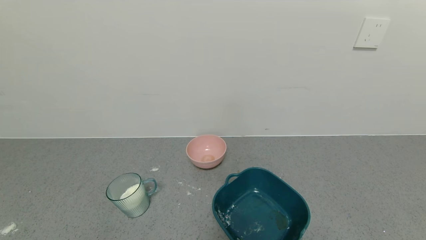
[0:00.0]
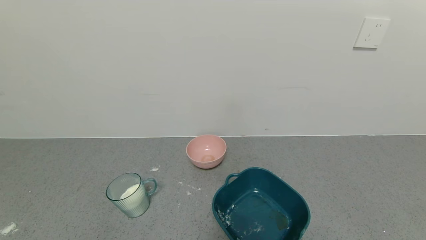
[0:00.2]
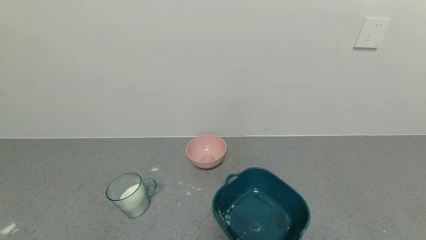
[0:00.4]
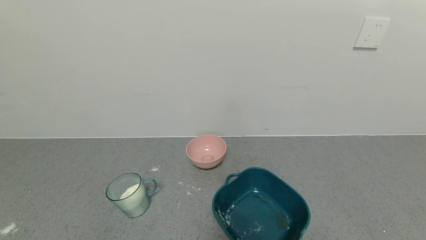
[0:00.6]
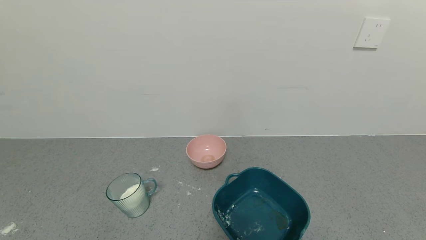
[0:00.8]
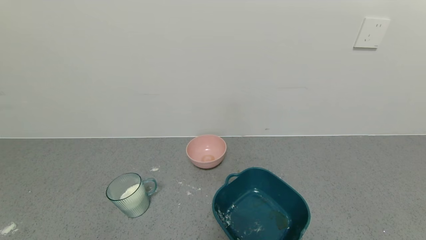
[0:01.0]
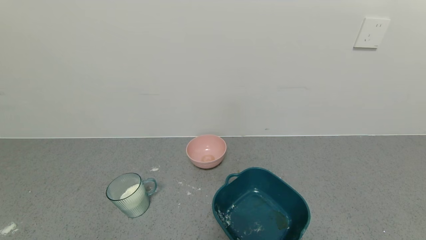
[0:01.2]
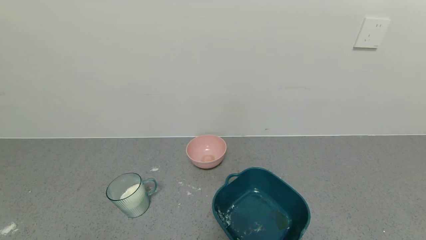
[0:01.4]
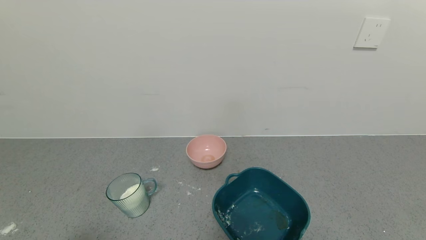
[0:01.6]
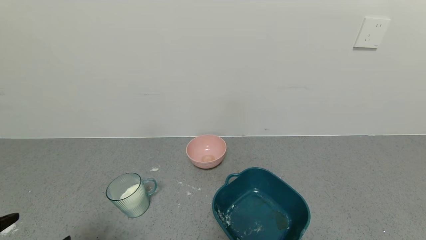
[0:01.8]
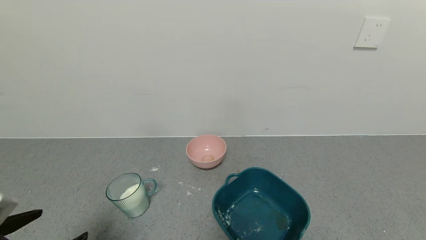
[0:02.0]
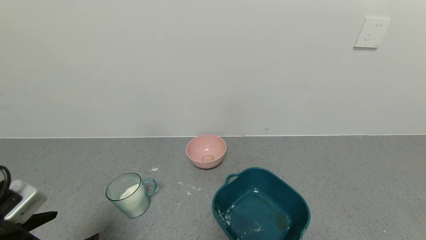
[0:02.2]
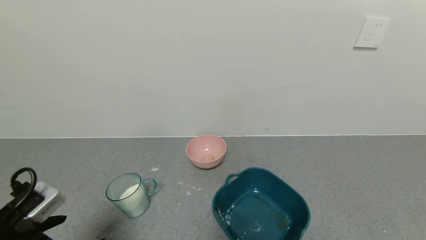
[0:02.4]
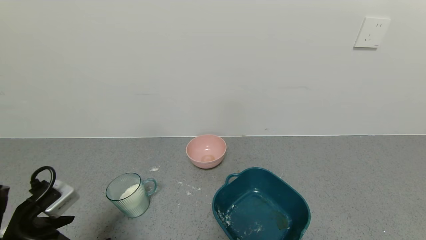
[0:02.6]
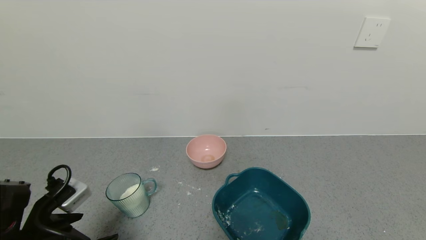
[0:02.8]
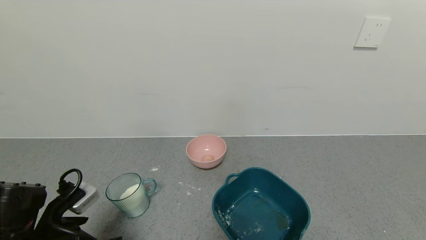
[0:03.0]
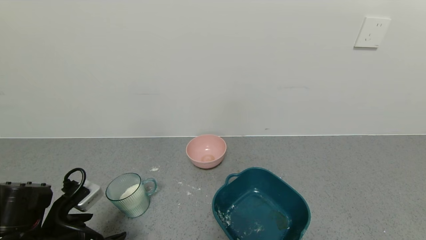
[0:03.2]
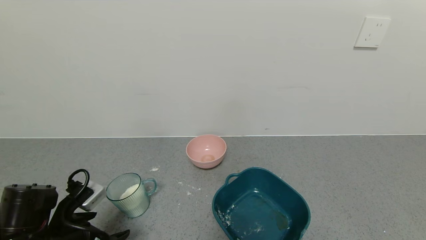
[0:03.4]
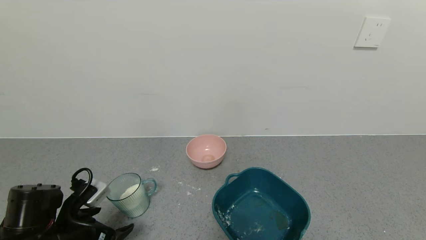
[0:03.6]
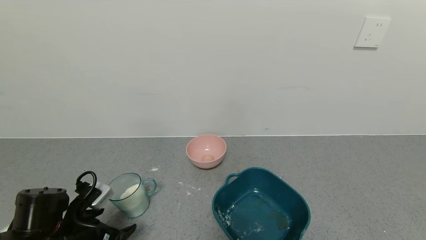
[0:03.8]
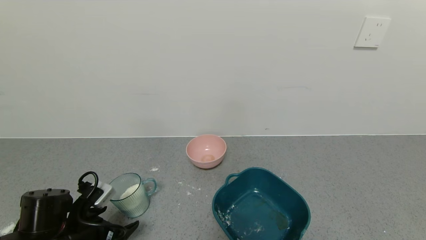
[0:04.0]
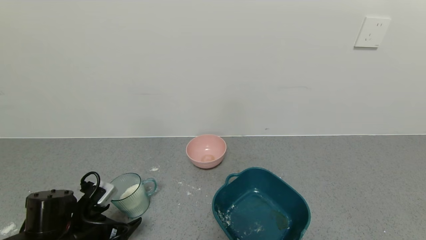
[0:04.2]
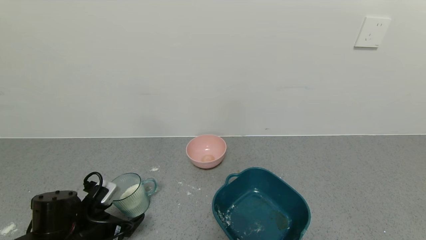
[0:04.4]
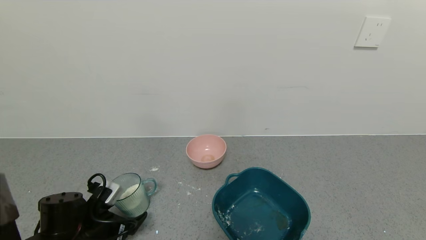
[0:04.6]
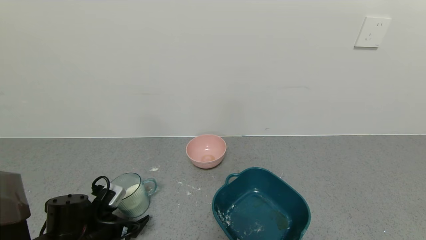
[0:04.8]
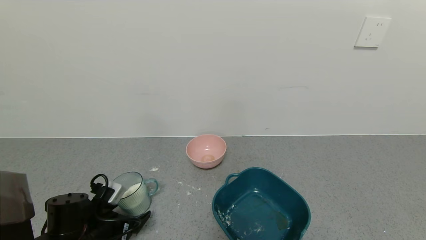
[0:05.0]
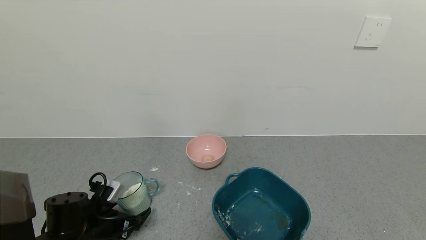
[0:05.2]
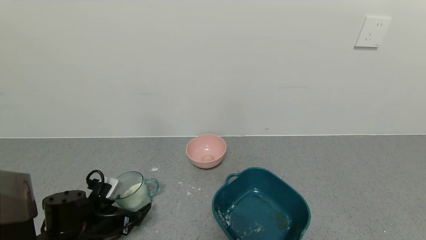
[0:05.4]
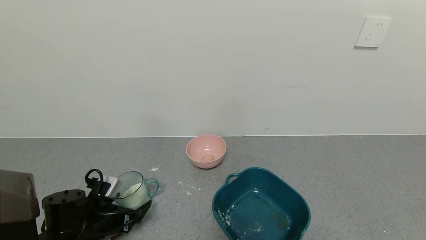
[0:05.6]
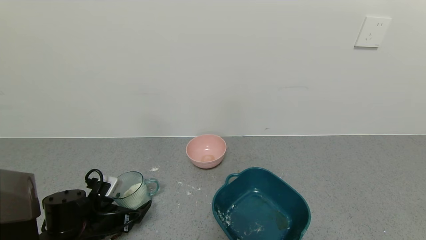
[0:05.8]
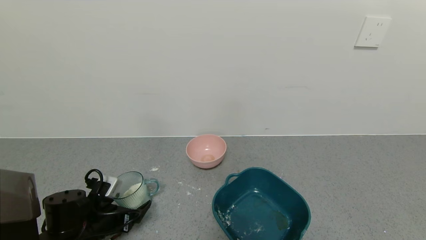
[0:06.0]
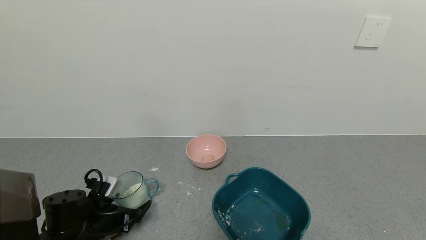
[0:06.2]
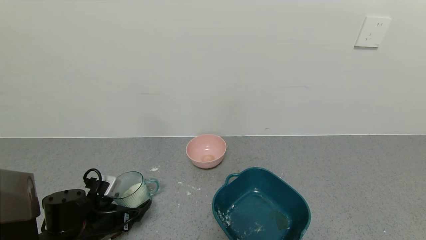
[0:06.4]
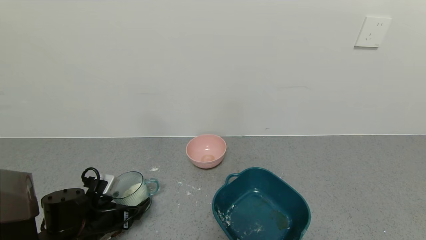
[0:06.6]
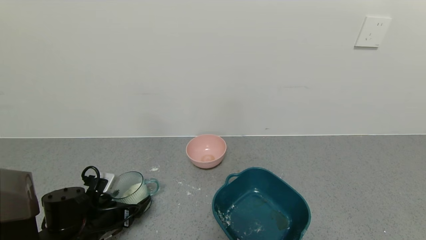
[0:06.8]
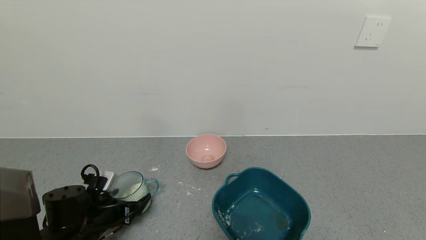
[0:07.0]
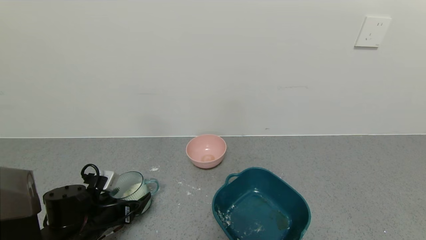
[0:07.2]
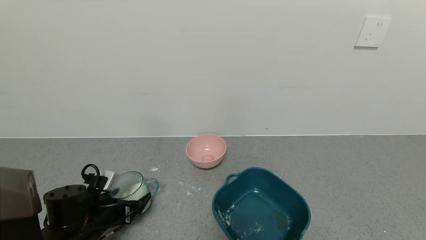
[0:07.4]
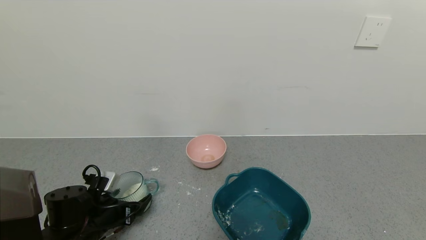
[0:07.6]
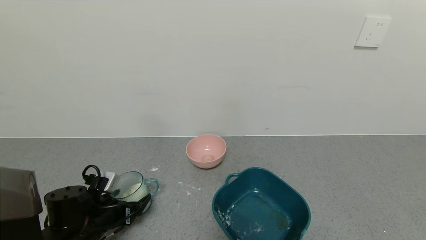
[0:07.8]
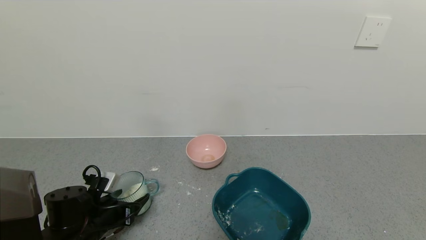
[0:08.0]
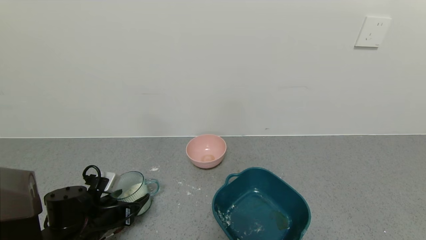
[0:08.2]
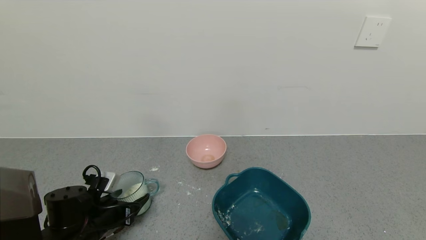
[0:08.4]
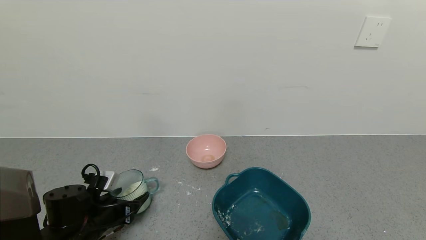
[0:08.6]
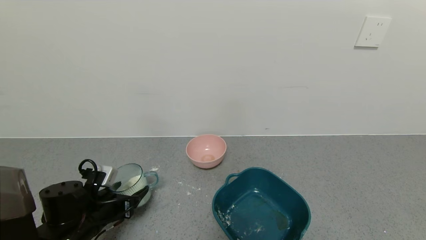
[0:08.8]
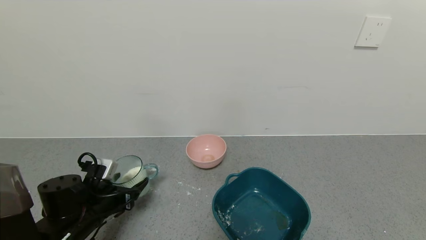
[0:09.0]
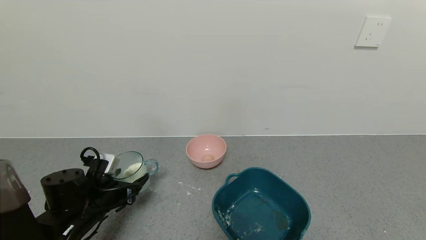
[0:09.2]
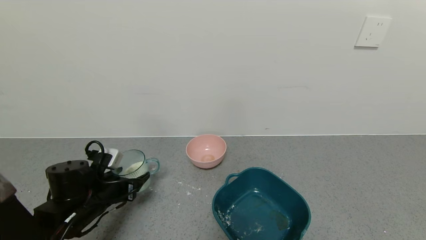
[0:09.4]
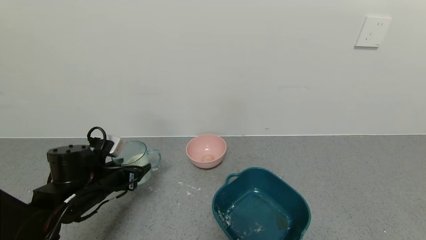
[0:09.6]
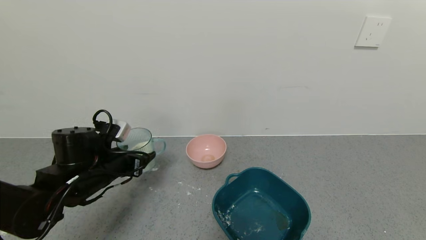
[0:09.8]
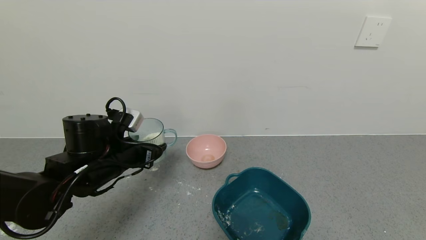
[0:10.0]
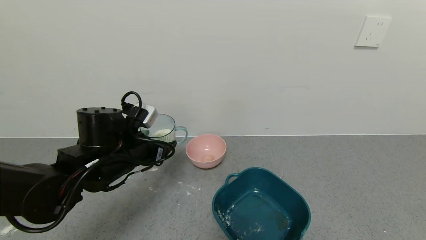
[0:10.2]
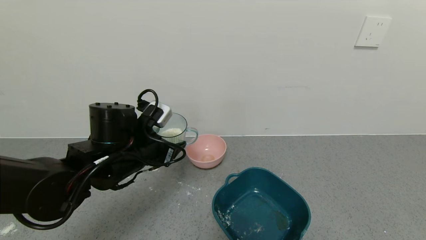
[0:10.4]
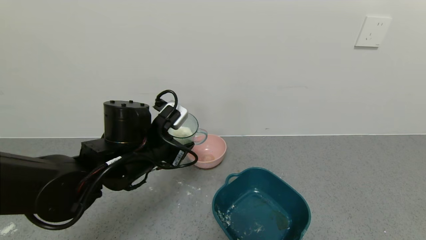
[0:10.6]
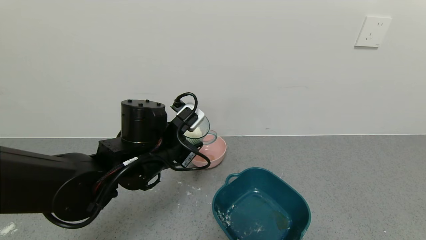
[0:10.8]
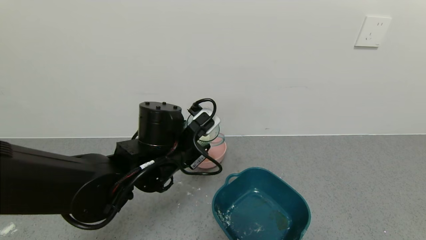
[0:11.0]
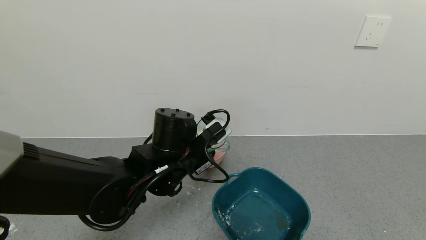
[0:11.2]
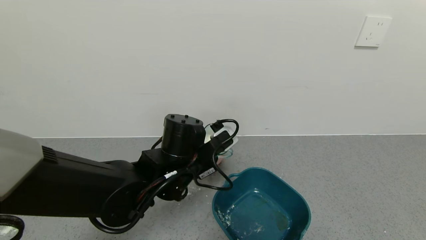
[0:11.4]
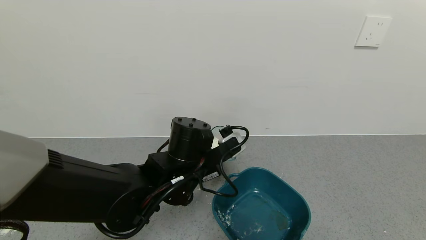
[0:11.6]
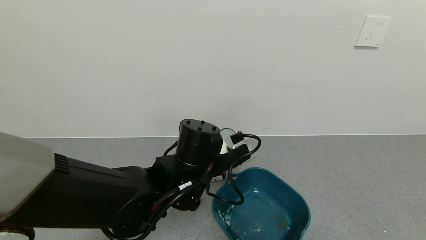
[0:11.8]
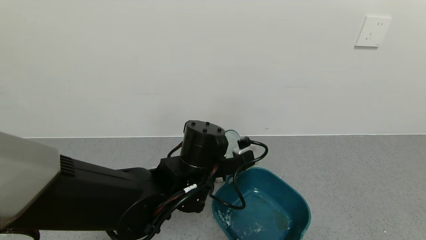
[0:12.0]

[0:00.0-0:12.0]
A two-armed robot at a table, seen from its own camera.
Task of the whole recording: use a gripper to pick up the cup and pour the powder into a bowl or tray.
Step, 0:00.0 to 0:08.0: Grasp the glass of powder with the left gripper.
0:01.6 to 0:03.0: The left gripper shifts about 15 cm forward and downward.
0:03.0 to 0:04.4: The left gripper is displaced downward by about 5 cm.
0:04.4 to 0:06.0: The grippers move only a little.
0:06.0 to 0:07.6: Both grippers stay about where they are.
0:07.6 to 0:09.0: The left gripper closes.
0:09.0 to 0:10.4: The left gripper travels upward and to the right by roughly 15 cm.
0:10.4 to 0:12.0: The left gripper moves to the right, roughly 15 cm.

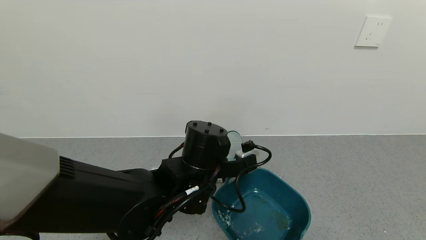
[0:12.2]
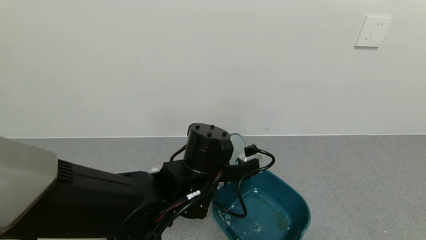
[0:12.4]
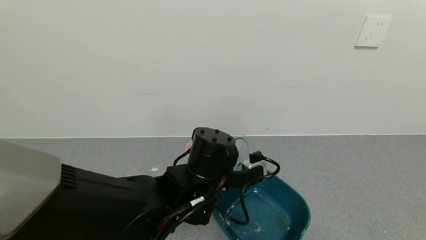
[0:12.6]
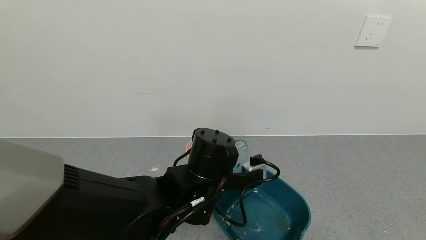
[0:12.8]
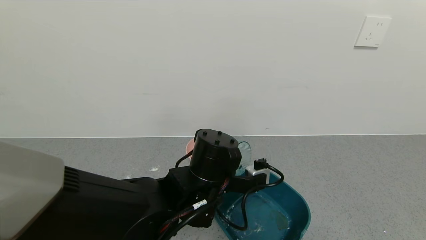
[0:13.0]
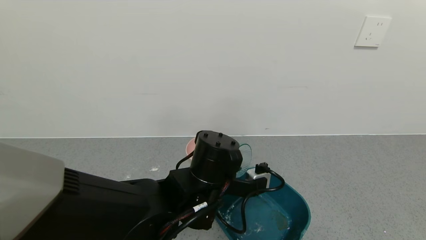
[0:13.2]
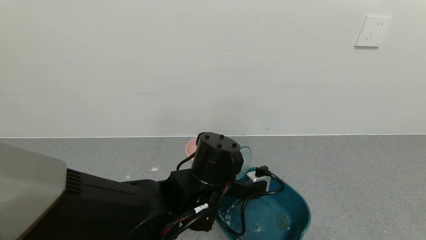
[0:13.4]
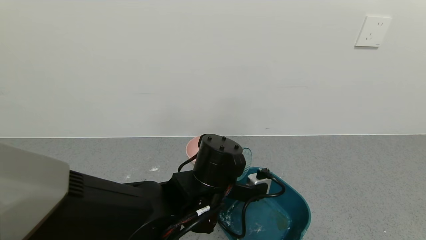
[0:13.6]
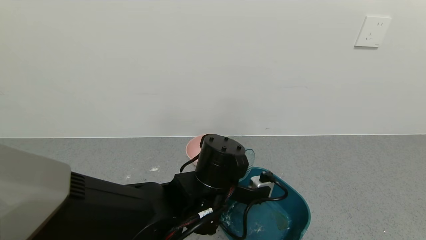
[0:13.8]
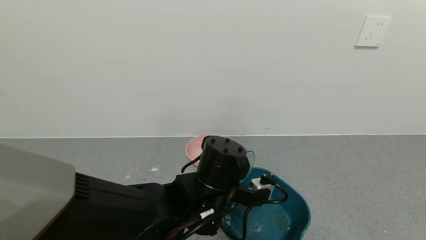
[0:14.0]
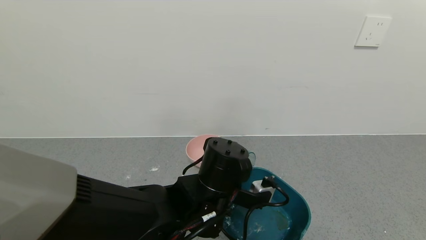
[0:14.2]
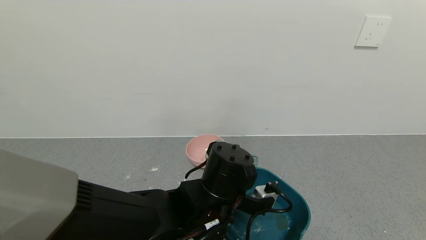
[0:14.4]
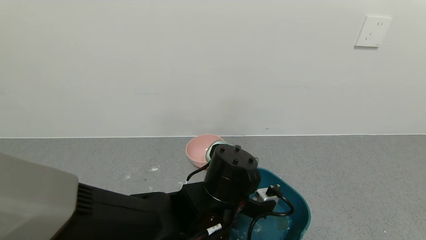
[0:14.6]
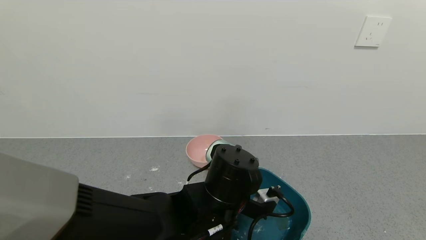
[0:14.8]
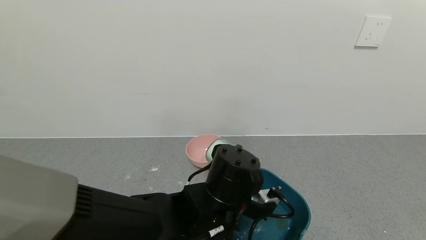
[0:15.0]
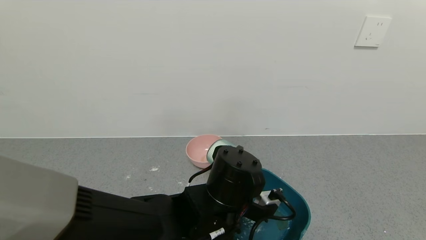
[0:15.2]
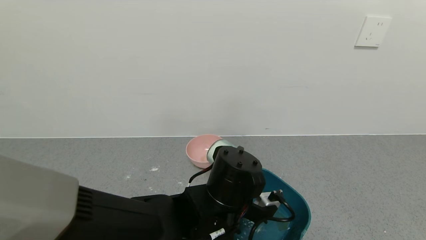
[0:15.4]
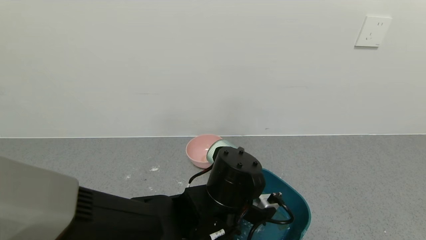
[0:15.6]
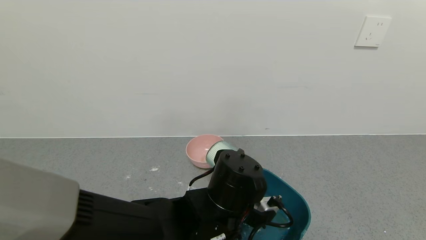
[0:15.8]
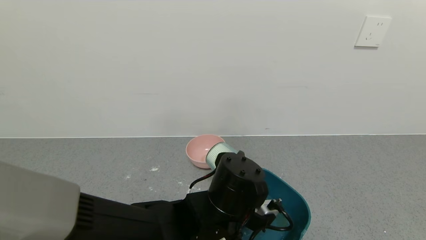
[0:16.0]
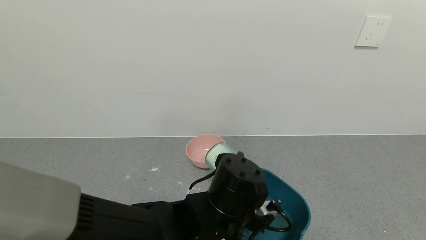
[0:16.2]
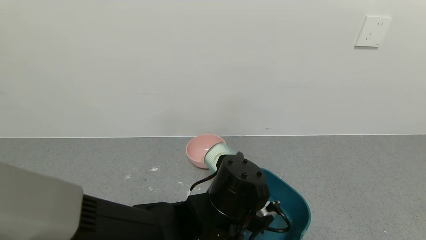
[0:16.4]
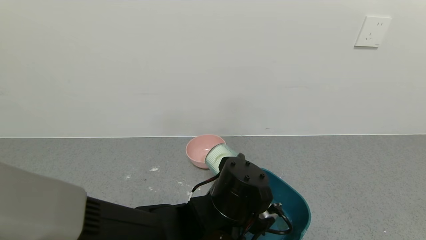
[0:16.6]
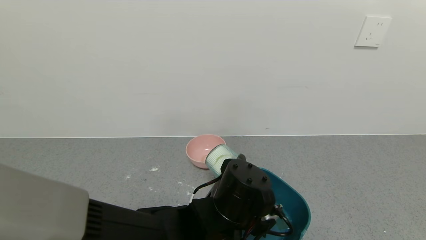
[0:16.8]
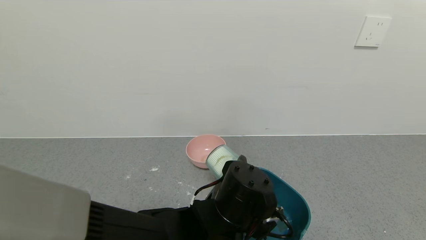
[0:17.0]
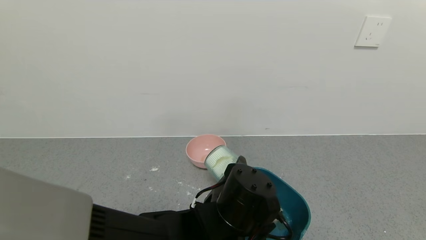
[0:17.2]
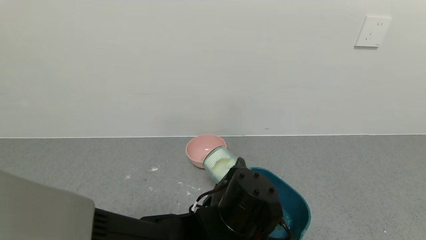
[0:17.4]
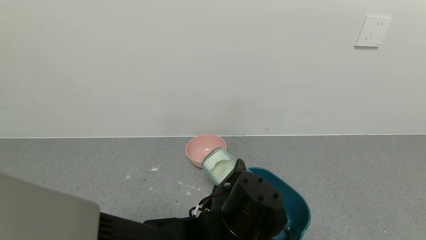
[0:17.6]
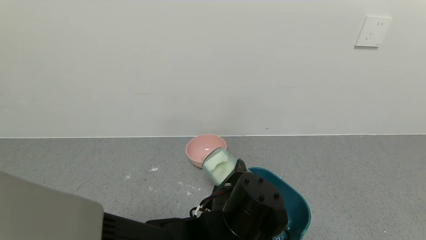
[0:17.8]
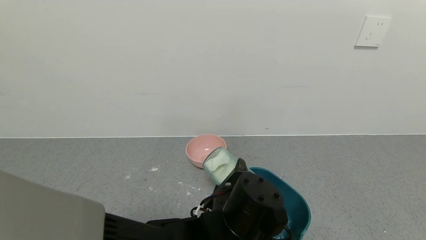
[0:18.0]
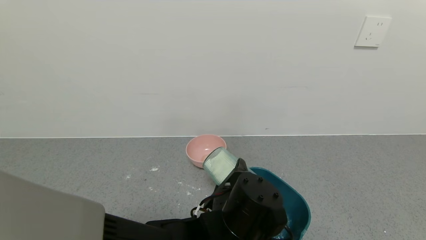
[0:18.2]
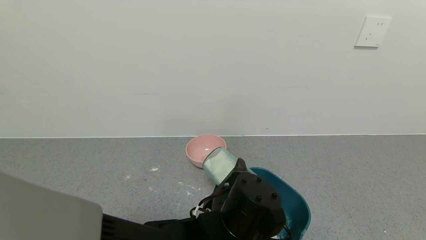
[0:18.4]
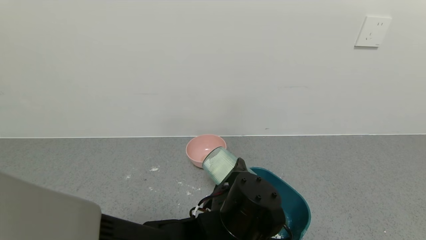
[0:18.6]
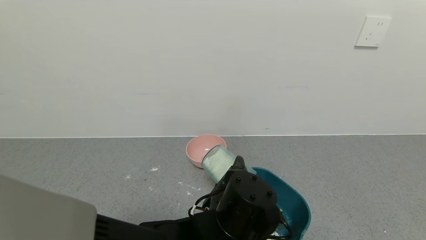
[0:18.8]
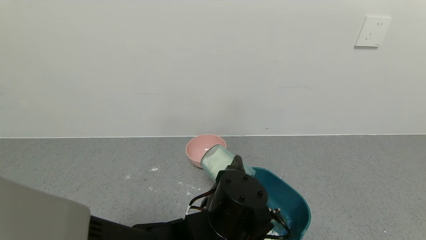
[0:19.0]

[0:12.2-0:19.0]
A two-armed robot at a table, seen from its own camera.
Task of the whole recording: use a gripper to pick up the cup and pour the powder into a bowl or tray.
0:12.2 to 0:13.6: There are only small adjustments of the grippers.
0:13.6 to 0:15.0: There are only small adjustments of the grippers.
0:15.0 to 0:19.0: The grippers move only a little.
